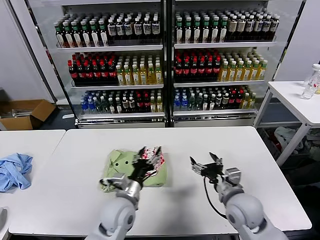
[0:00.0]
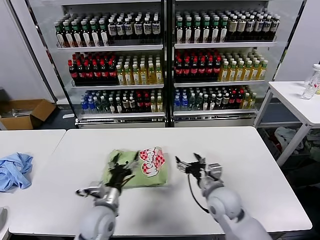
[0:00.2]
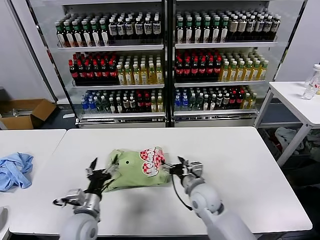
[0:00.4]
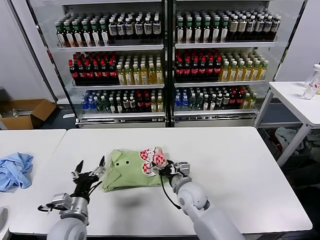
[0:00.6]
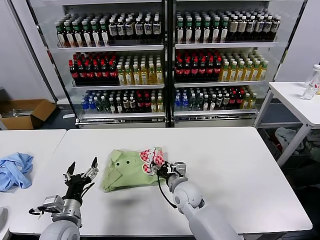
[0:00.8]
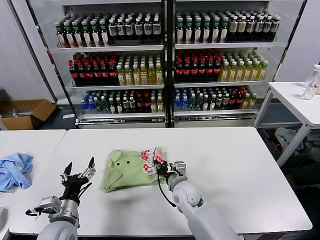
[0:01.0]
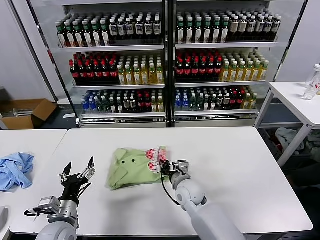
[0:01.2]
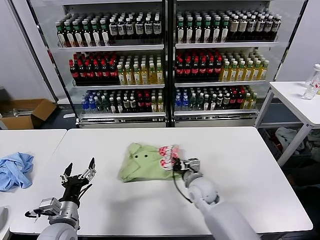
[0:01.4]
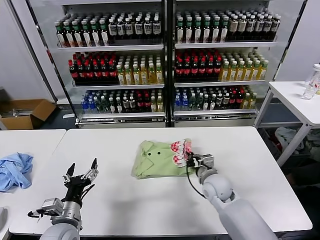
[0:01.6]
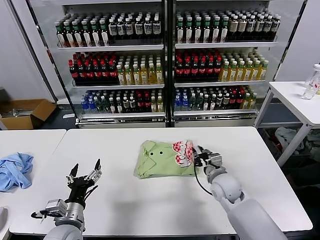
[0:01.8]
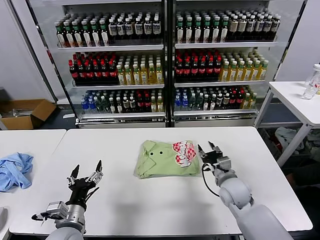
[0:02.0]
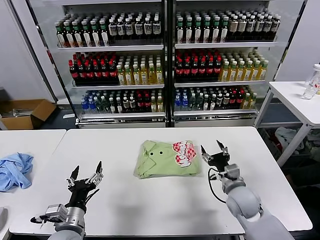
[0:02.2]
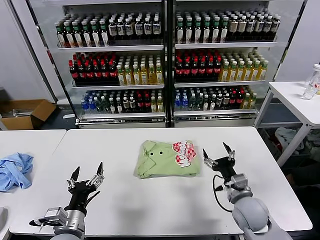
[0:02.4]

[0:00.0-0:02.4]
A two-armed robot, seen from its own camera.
Task of the whole recording: fold and organize the clothes.
Step, 0:00.0 to 0:01.8: Drag the clothes to the center of the table.
0:00.0 to 0:01.2: The right gripper travels to the left, forward and downward by some 20 cm, and closes its fingers; the left gripper goes approximately 20 cm to the left.
0:01.2 to 0:02.4: The right gripper travels to the right and backward by roughly 20 cm, and opens its fingers.

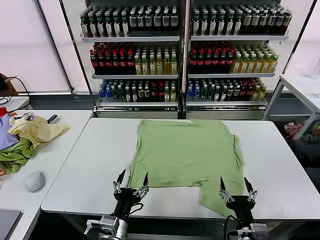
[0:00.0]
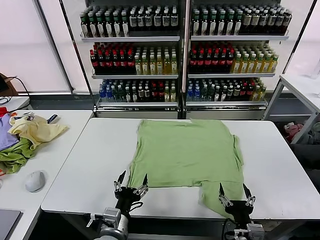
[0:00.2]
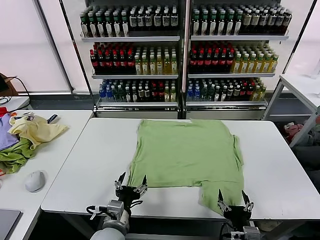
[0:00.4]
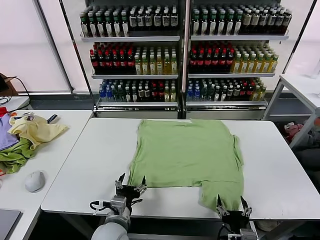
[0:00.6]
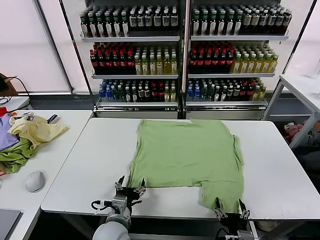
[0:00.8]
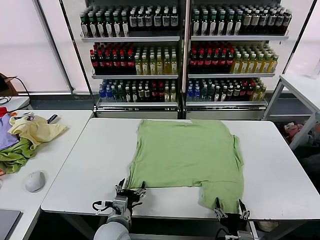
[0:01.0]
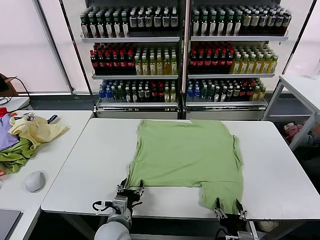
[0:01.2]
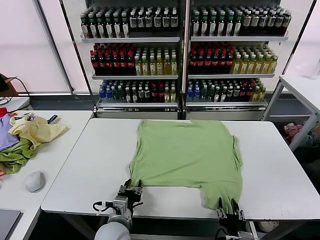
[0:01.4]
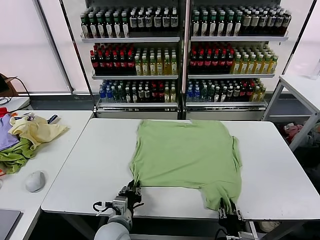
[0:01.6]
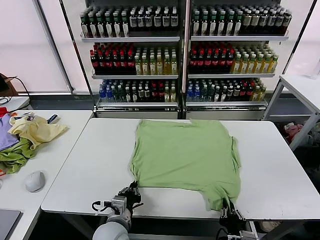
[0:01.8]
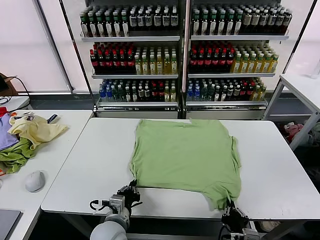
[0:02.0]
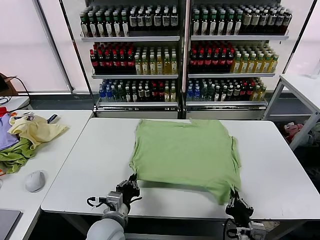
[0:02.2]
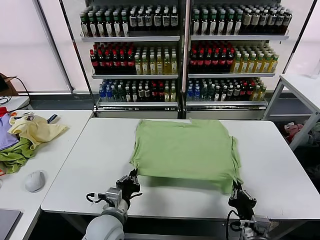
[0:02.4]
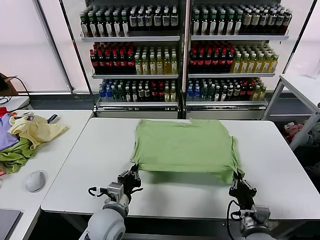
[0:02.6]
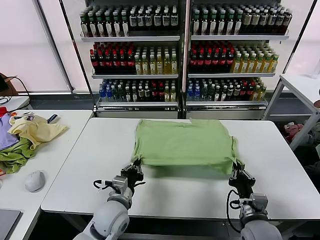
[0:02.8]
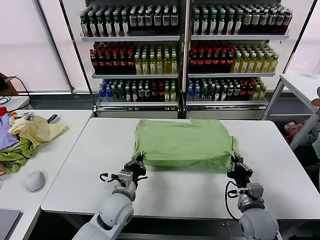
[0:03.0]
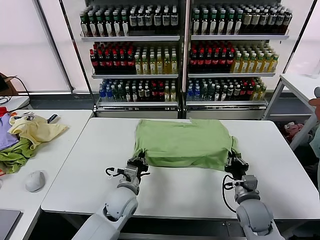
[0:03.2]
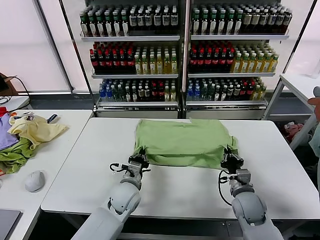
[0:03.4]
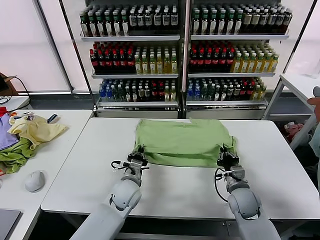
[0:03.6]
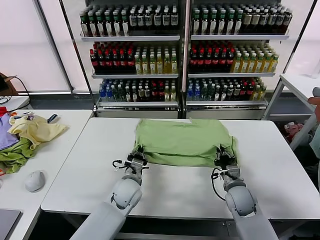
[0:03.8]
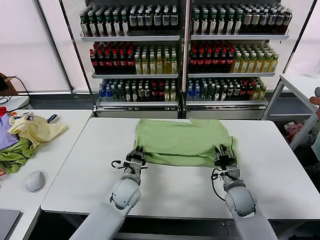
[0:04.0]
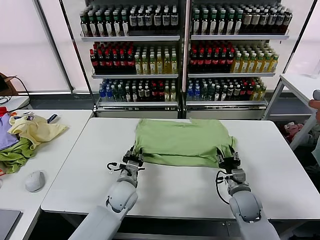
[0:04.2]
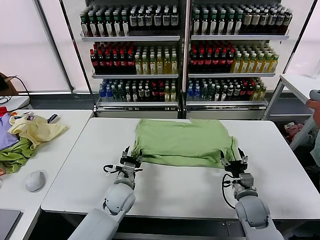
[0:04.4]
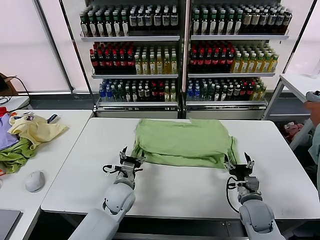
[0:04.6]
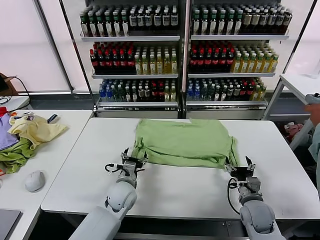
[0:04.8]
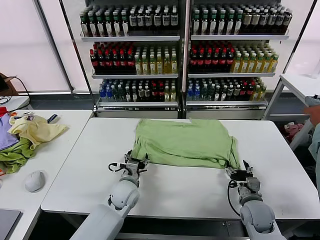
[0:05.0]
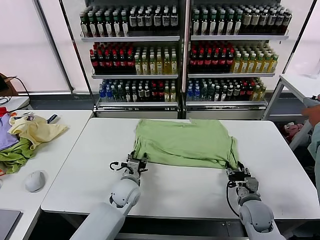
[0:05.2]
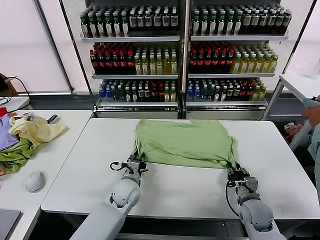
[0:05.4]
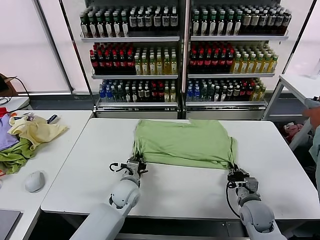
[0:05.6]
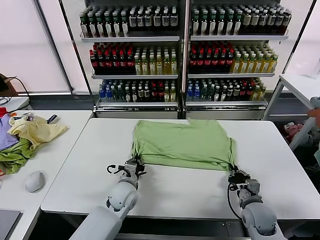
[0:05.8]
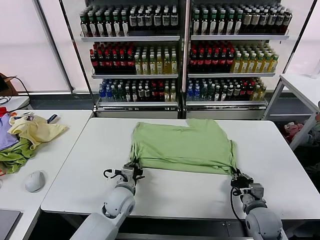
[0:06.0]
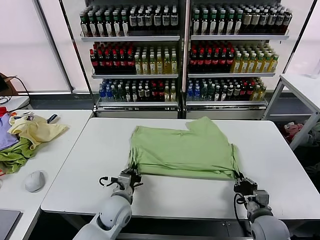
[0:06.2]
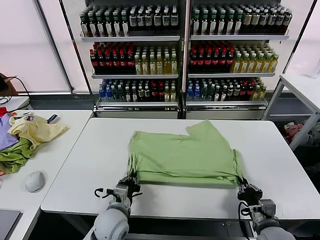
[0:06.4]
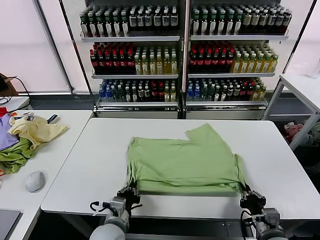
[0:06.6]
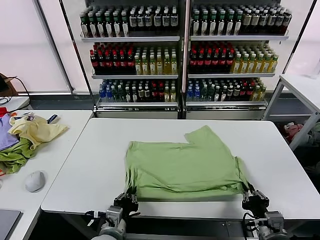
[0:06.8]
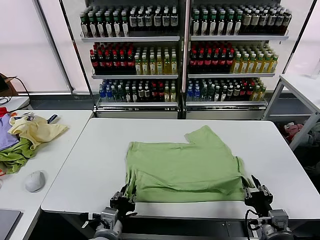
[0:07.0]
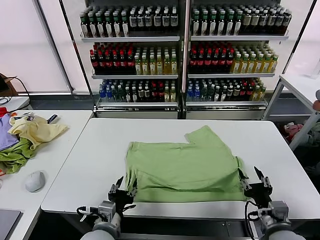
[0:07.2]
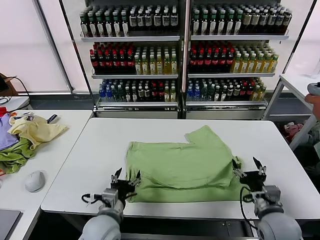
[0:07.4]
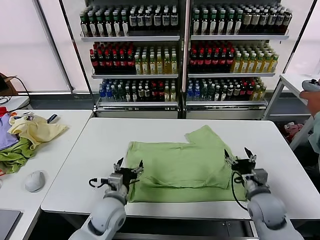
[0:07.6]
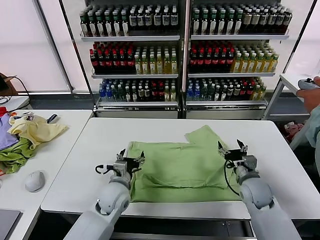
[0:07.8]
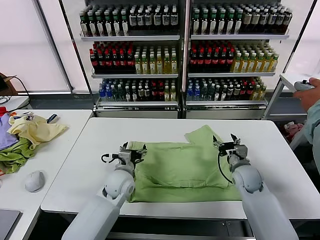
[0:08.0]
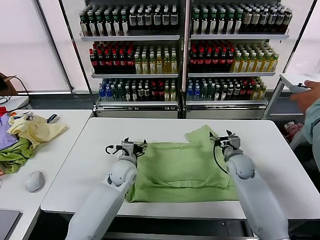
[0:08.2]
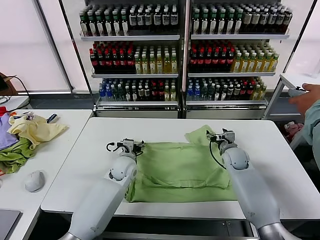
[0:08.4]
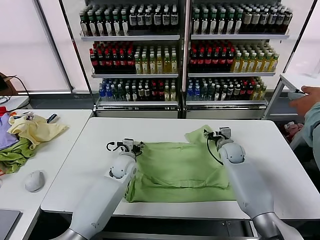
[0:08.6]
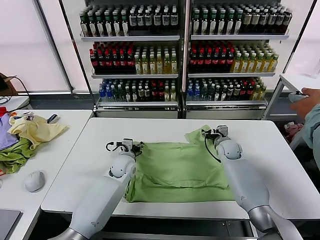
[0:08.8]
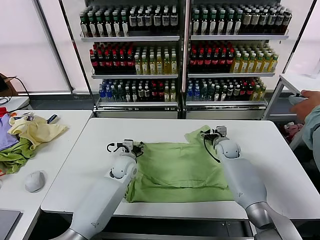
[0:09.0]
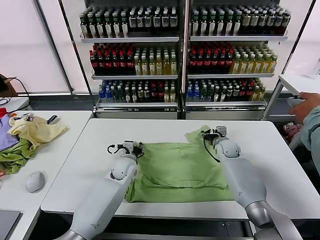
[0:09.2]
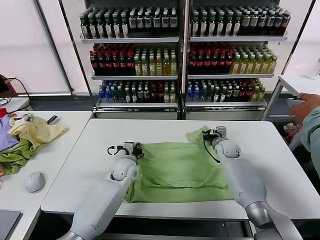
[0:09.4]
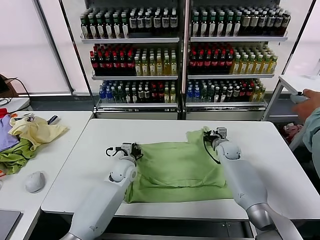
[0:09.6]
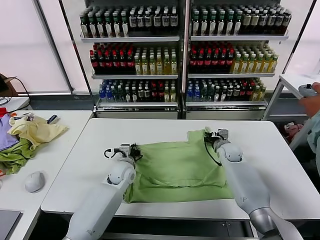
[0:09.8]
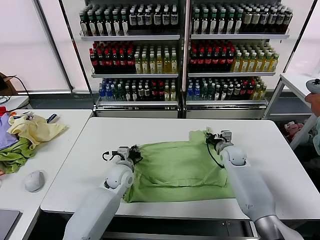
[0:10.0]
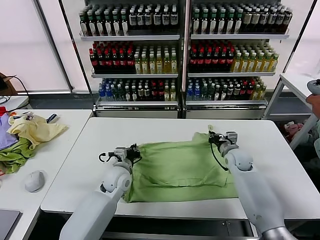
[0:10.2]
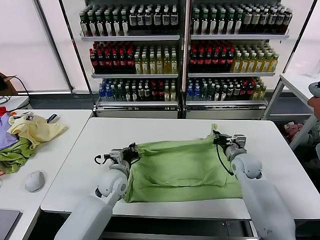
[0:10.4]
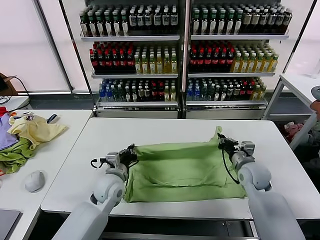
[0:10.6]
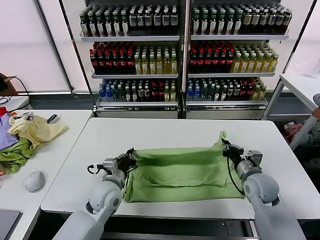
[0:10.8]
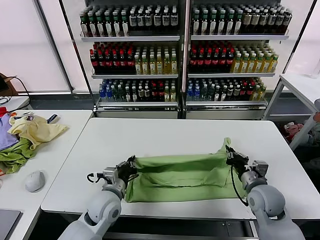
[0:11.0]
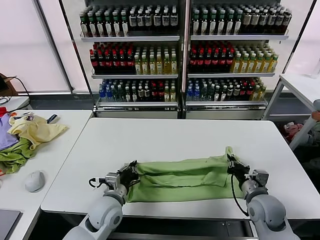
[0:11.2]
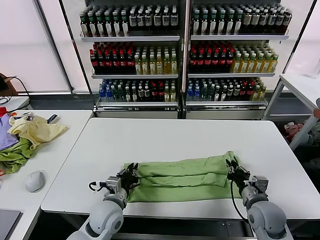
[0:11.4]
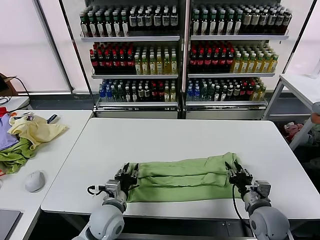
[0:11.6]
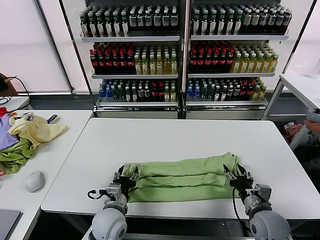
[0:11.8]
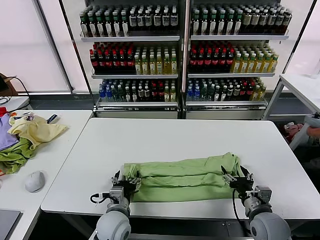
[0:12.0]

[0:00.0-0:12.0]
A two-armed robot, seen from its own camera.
Task of the whole recording: fold and organize the clothes.
Step, 0:00.0 to 0:01.8: use both grippers simultaneously to clamp the lower edge of the clothing fabric.
Step, 0:02.0 to 0:04.4: use both grippers to drag the lower edge of the fabric forward and fold it over the upper edge.
Step, 0:04.6 to 0:07.0: Drag the clothes downward with both gripper.
Step, 0:07.2 to 0:09.6: use both grippers simultaneously to clamp the upper edge of the clothing fabric.
Step, 0:09.8 to 0:11.6: use both grippers to drag the upper edge of the fabric backward and fold it over the lower edge.
0:01.6 to 0:03.0: The left gripper travels forward by approximately 10 cm. The right gripper heads forward and to the right, covering some 15 cm.
0:03.0 to 0:04.4: The left gripper travels forward by some 5 cm, and opens its fingers; the right gripper opens its fingers.
0:04.4 to 0:06.0: The left gripper closes; the right gripper closes up.
0:06.0 to 0:07.6: The left gripper shifts approximately 10 cm backward, and opens, while the right gripper moves upward, about 5 cm, goes backward and returns, roughly 10 cm each way, and opens.
0:07.6 to 0:09.0: Both grippers travel together forward, some 20 cm.
0:09.0 to 0:10.4: The right gripper travels backward by about 10 cm, and closes its fingers, while the left gripper shifts approximately 5 cm backward, and closes up.
0:10.4 to 0:12.0: The two grippers go approximately 15 cm backward. The left gripper opens; the right gripper opens.

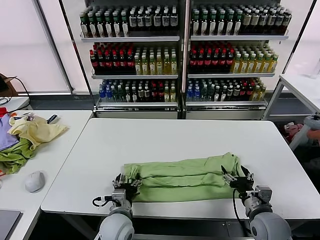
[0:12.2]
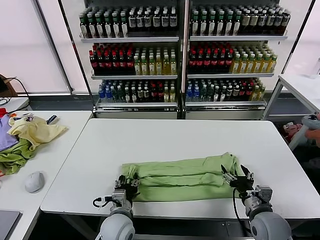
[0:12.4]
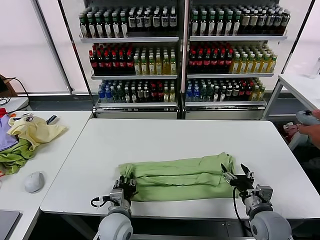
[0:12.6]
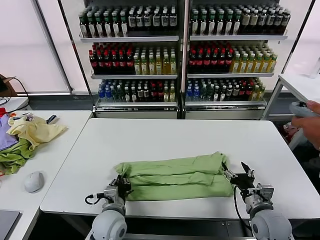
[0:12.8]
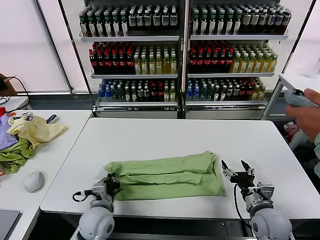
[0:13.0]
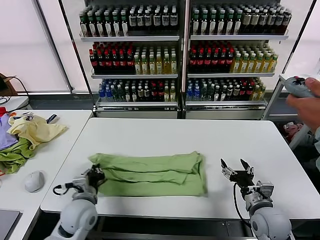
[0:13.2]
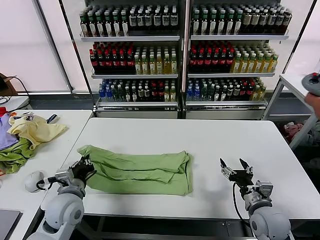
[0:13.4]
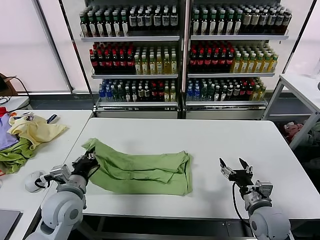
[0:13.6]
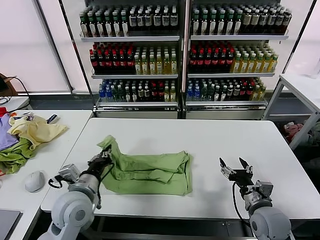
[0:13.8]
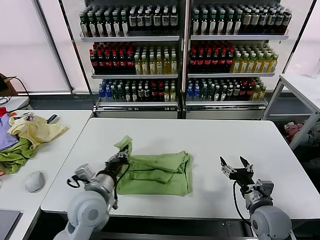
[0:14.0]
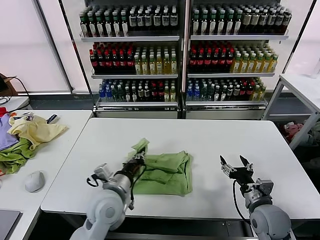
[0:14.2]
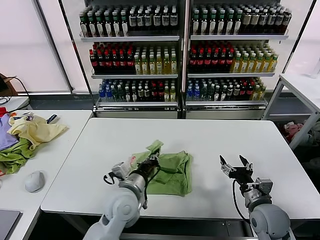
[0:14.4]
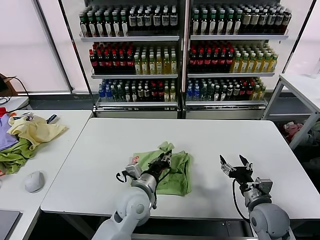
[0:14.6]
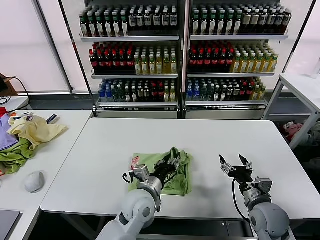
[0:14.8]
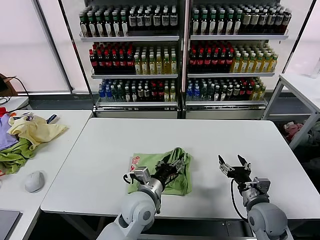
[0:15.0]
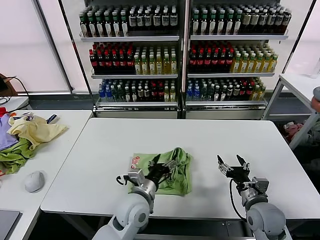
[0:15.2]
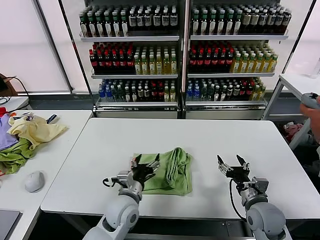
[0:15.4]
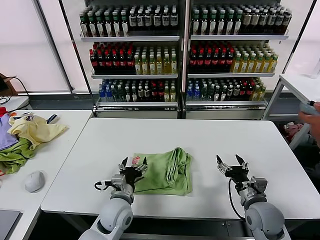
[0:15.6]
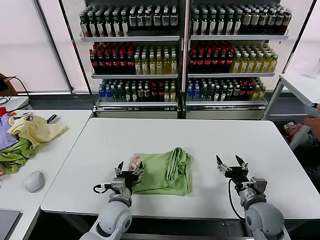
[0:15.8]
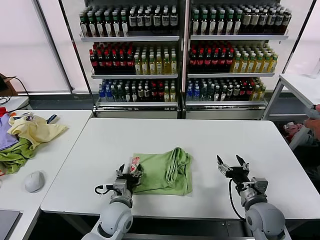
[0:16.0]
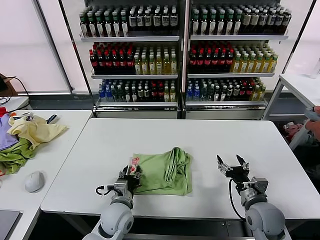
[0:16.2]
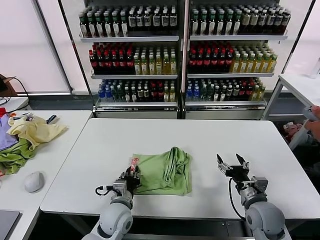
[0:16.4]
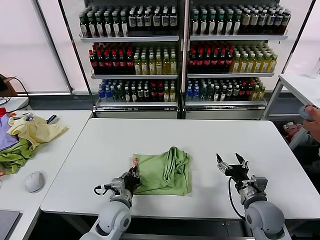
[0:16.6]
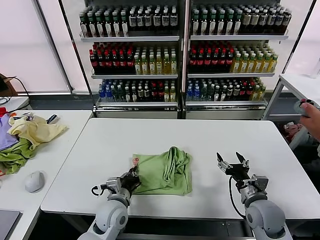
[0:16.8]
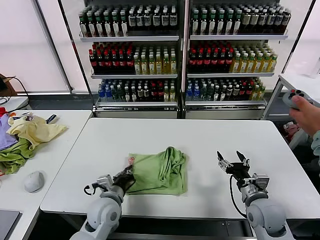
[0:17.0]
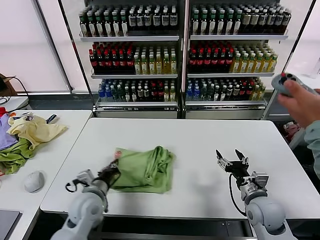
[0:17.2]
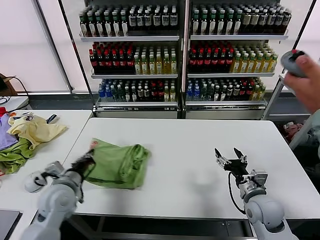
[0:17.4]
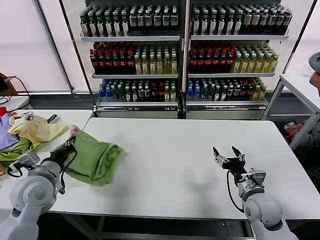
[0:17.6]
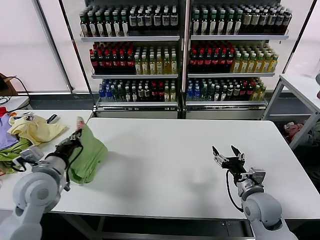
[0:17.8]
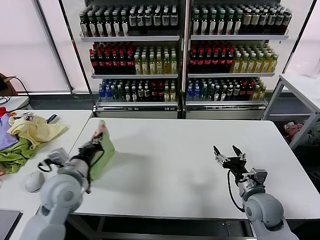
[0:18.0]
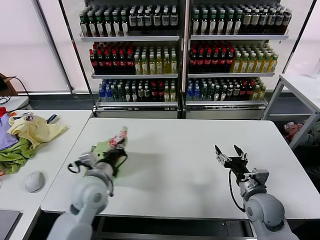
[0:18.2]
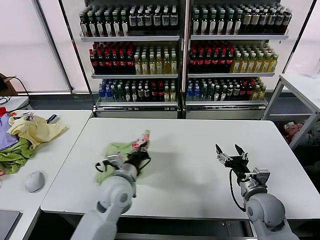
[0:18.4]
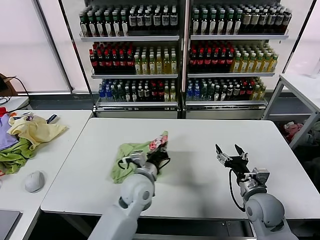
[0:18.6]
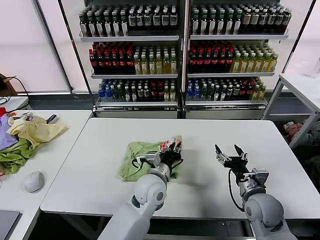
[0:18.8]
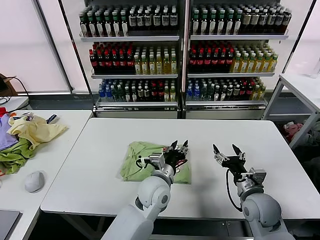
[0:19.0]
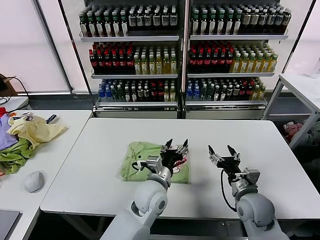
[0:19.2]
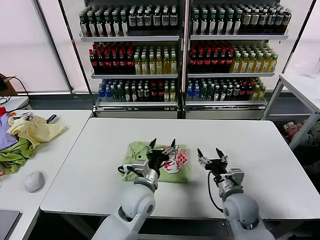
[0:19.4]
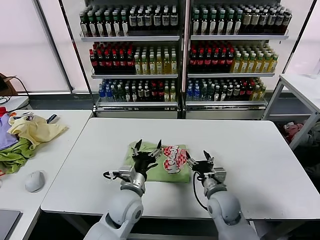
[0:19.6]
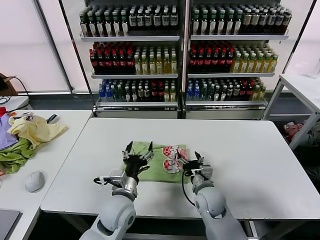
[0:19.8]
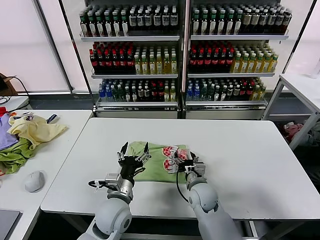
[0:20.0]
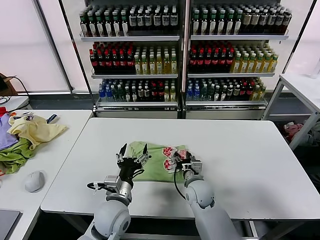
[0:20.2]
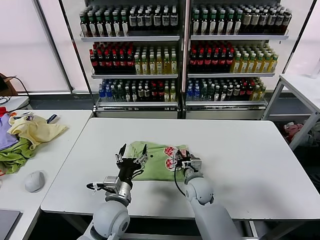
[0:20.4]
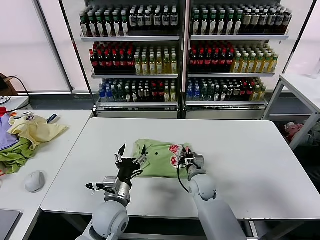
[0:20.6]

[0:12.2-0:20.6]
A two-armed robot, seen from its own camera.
Task of the whole recording: fold and organize the clothes.
Step, 0:12.2 to 0:12.8: use the left gripper to clamp the left edge of the fabric.
Step, 0:13.0 to 0:14.8: use the left gripper to drag the left edge of the fabric to the left and folds it over the right edge.
Step, 0:15.2 to 0:18.8: Flip the folded clothes over with left gripper.
0:12.2 to 0:13.6: The left gripper goes approximately 15 cm to the left and upward, and closes.
0:13.6 to 0:15.0: The left gripper heads to the right, covering some 20 cm, and opens up.
0:15.0 to 0:16.4: The left gripper is displaced to the left and downward by about 10 cm.
0:16.4 to 0:17.8: The left gripper is displaced to the left and upward by roughly 25 cm, and closes its fingers.
0:17.8 to 0:19.2: The left gripper moves to the right, roughly 30 cm, and opens.
0:19.2 to 0:20.6: The right gripper shifts some 20 cm to the left, forward and downward, and closes its fingers. Meanwhile the left gripper is displaced to the left and backward by roughly 15 cm.
